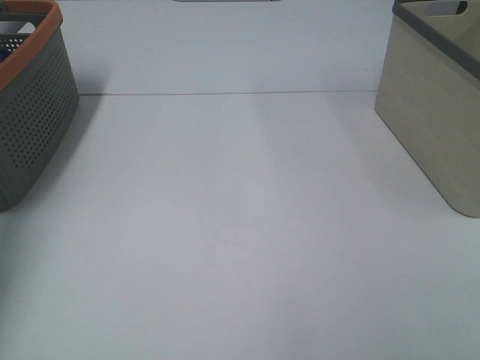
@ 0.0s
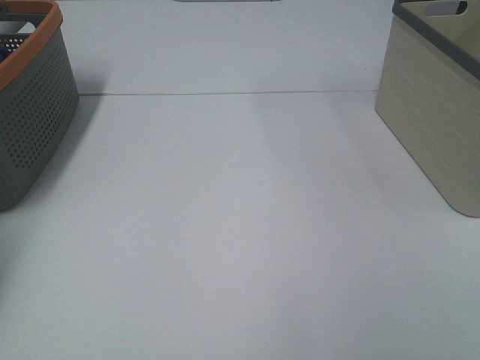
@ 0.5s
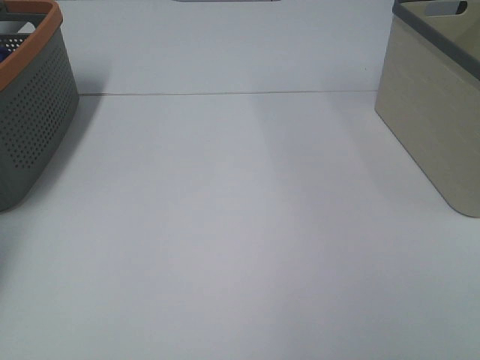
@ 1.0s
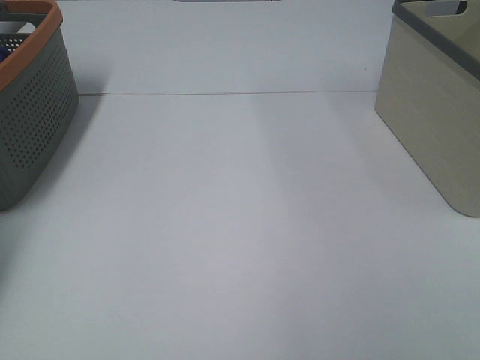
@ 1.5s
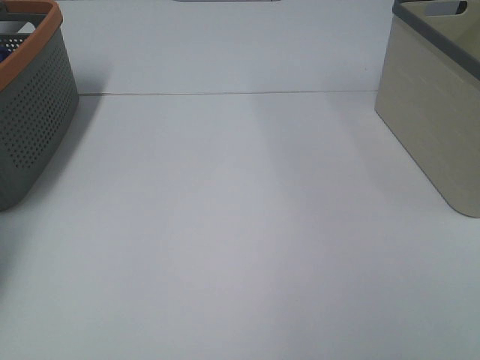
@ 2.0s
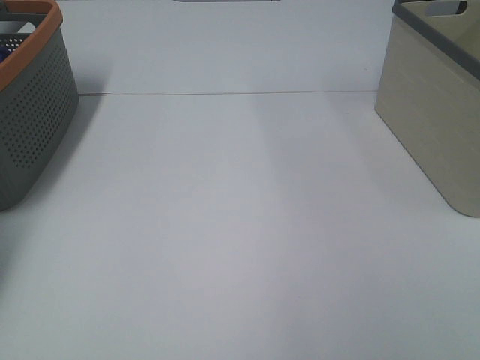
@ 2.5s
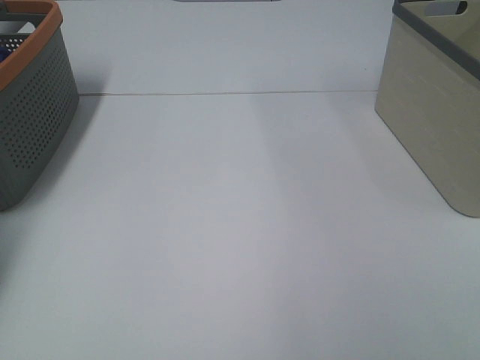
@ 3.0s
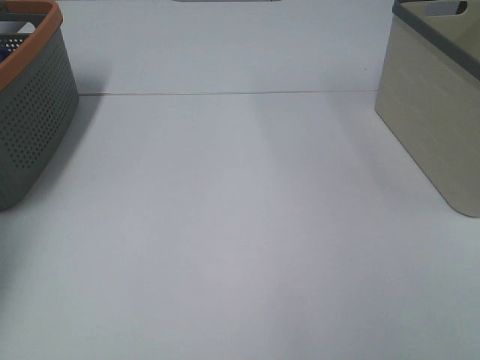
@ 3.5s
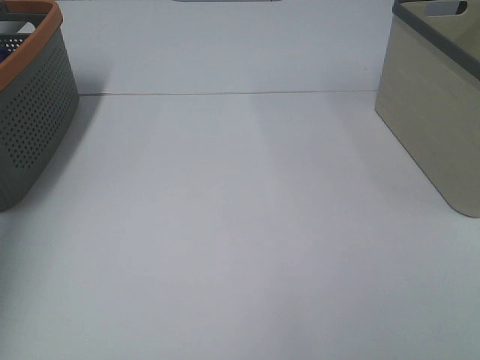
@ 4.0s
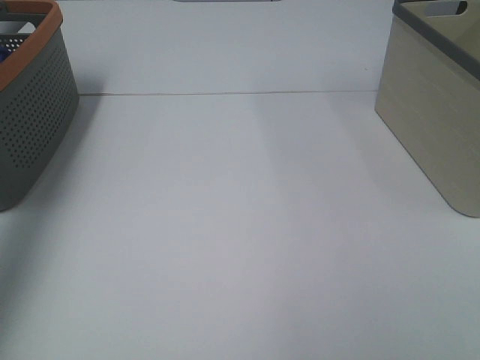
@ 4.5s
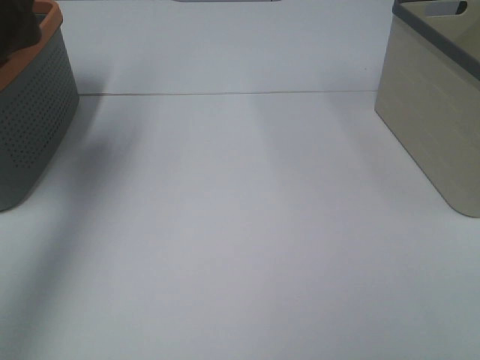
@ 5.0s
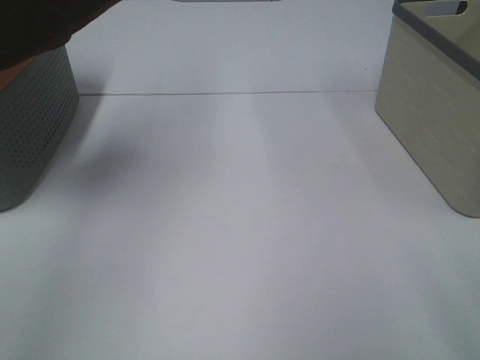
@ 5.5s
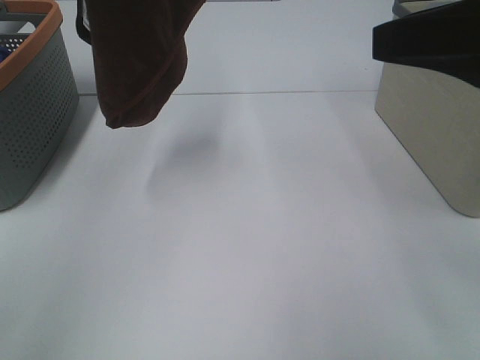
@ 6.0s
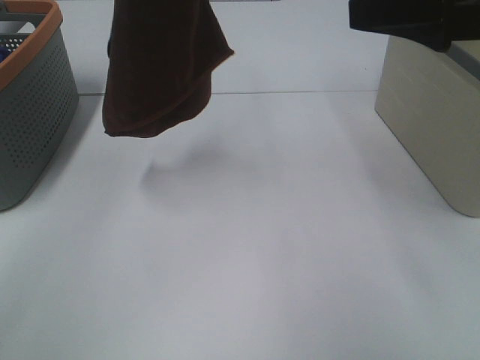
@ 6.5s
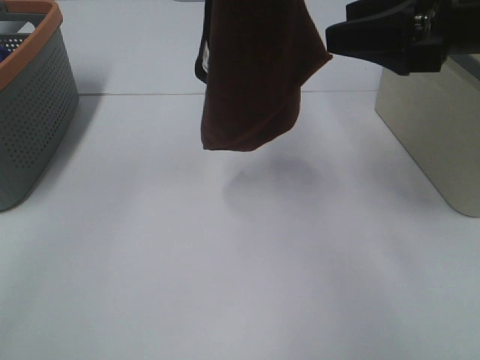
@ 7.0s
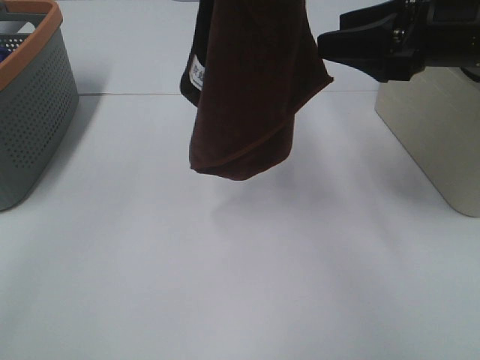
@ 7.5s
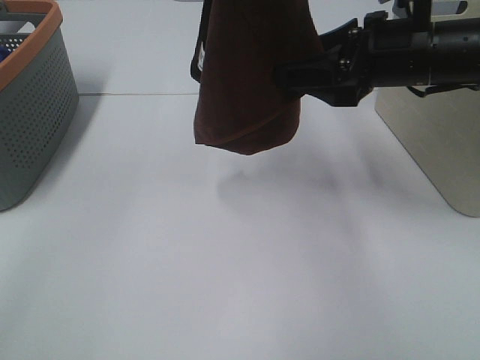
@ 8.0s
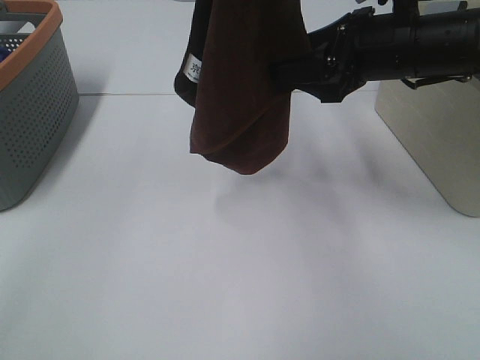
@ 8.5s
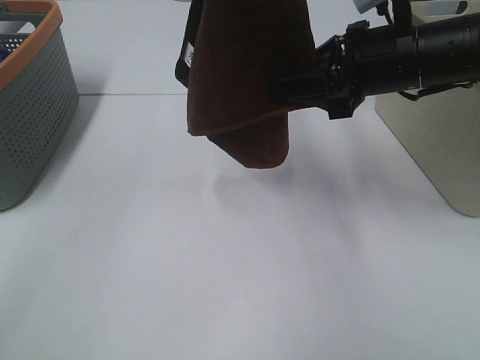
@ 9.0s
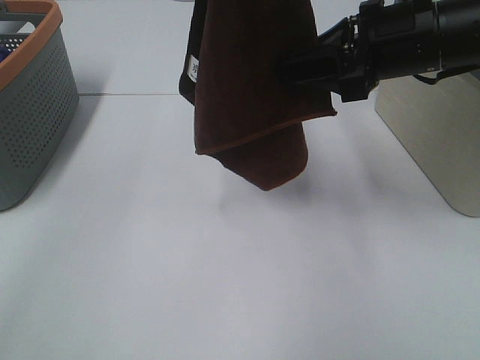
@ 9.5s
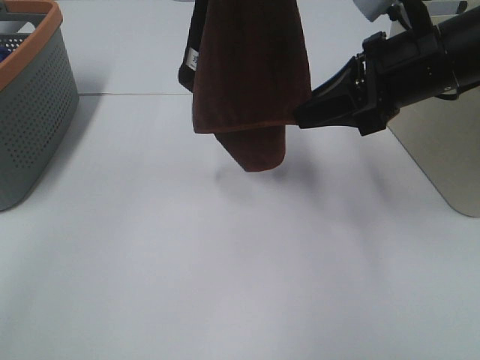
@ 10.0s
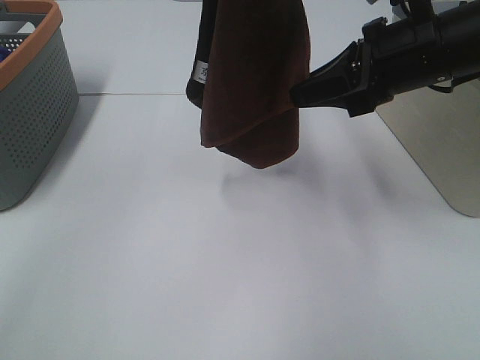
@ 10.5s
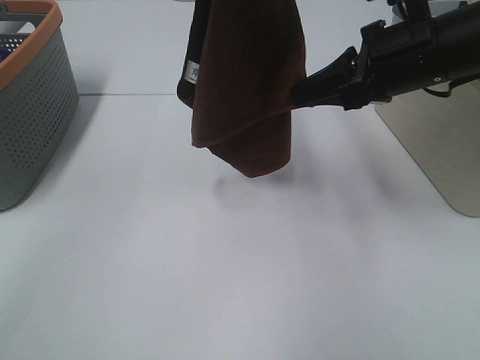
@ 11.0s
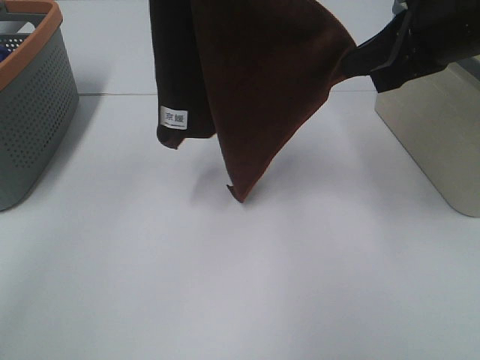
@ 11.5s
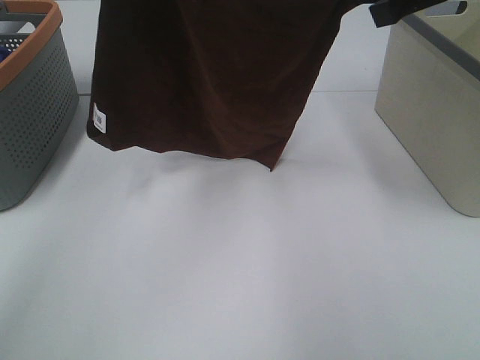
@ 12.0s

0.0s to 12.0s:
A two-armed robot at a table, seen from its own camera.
Task of the whole recording: Remove the towel and place it.
Step, 4.5s to 8.5s: Right hand: grab a corner of the brown towel and straighten it.
Step, 9.0s to 10.5s: Right hand: spread the brown towel flat on the table.
Step, 9.0s to 11.0s: Left hand: spread the brown towel flat on the table.
4.0s to 6.0s: The right gripper is displaced forward by about 20 cm, while the left gripper goes about 25 cm to the right and upward.
6.0s to 8.0s: The right gripper is displaced forward and downward by roughly 15 cm. Meanwhile the left gripper travels to the right by some 10 cm.
8.0s to 10.0s: The right gripper closes up.
10.0s to 12.0s: The left gripper travels to the left by approximately 5 cm. Meanwhile the right gripper moves upward, about 10 cm.

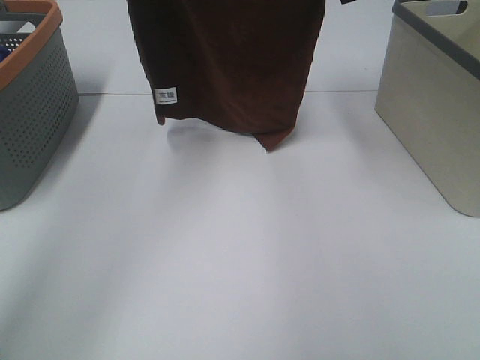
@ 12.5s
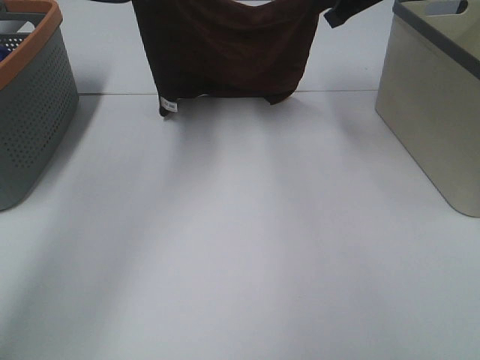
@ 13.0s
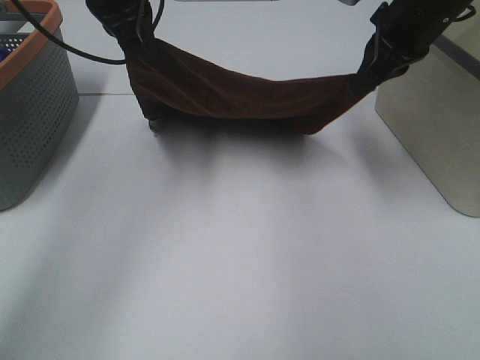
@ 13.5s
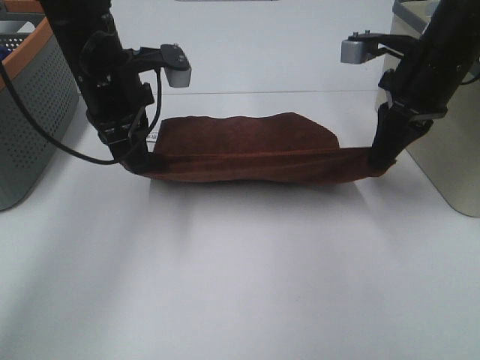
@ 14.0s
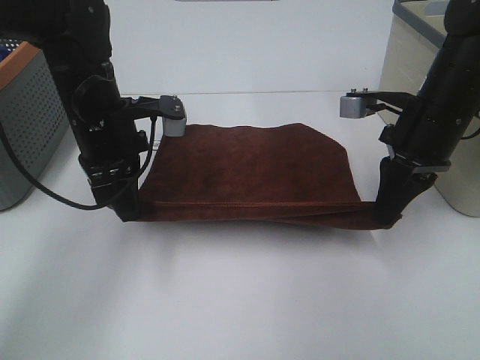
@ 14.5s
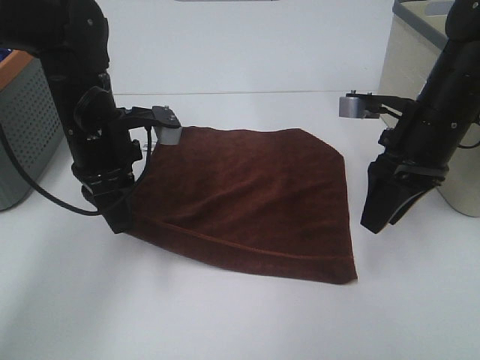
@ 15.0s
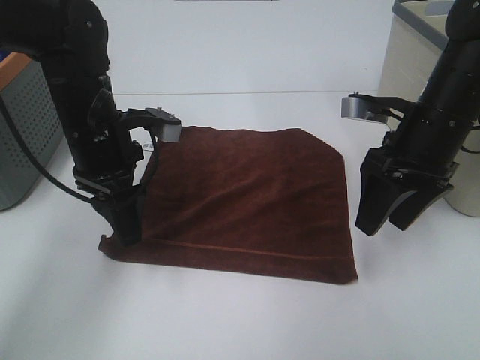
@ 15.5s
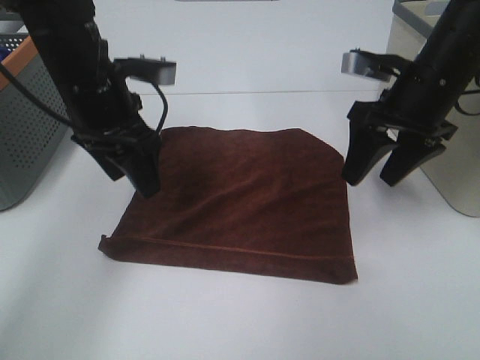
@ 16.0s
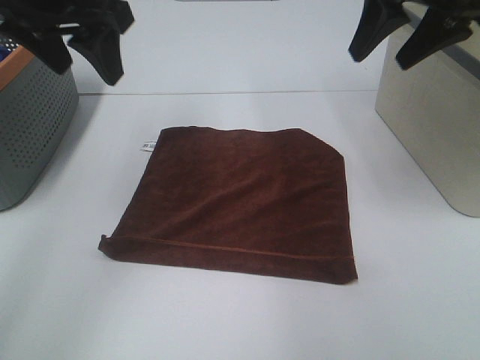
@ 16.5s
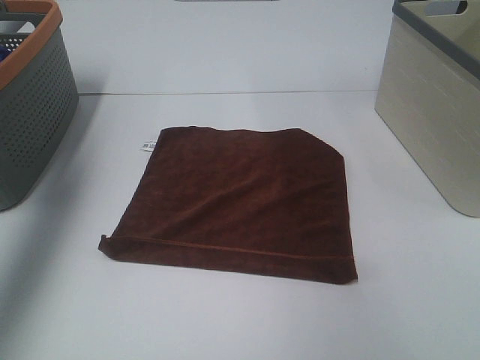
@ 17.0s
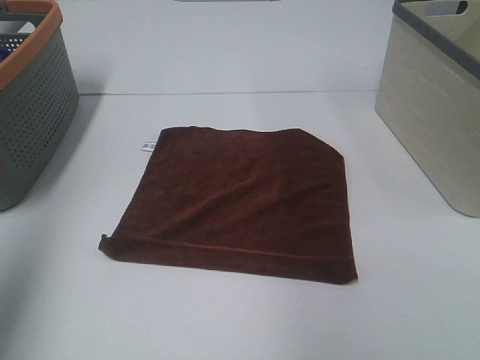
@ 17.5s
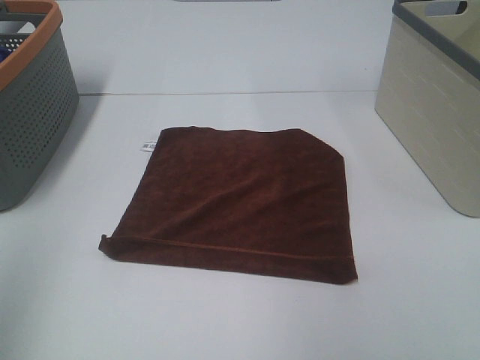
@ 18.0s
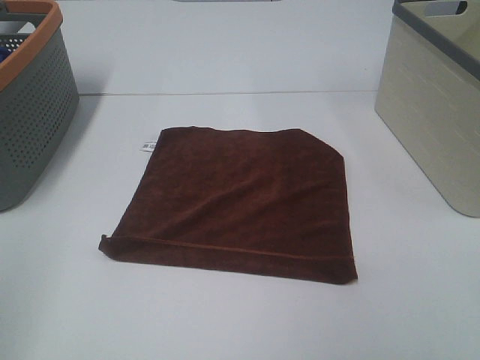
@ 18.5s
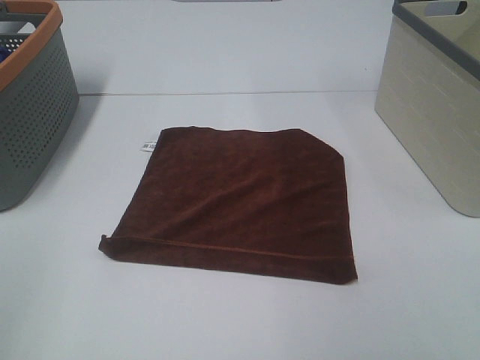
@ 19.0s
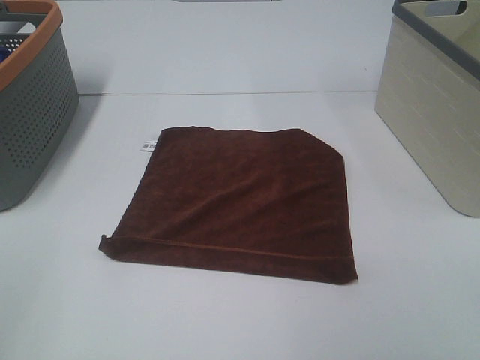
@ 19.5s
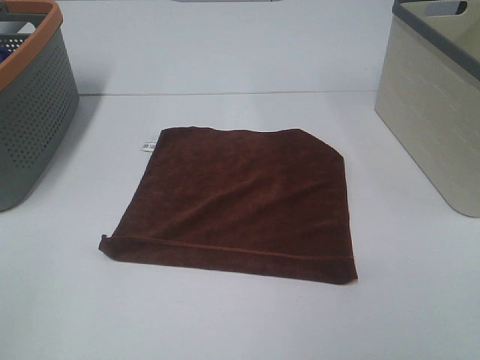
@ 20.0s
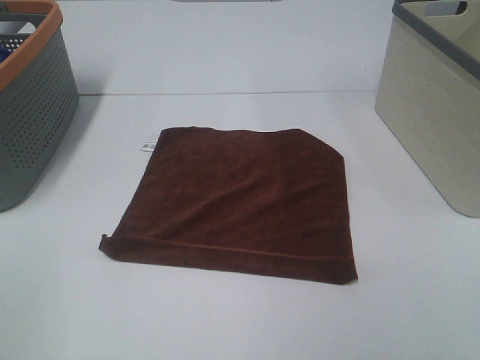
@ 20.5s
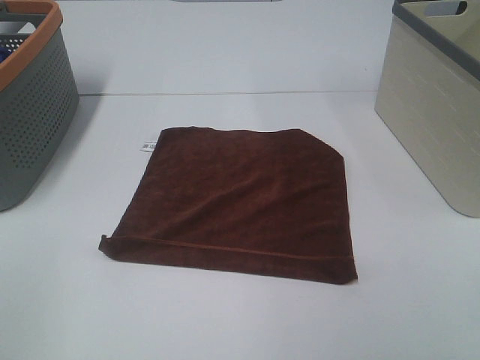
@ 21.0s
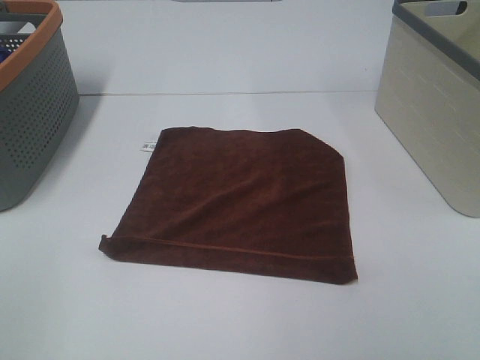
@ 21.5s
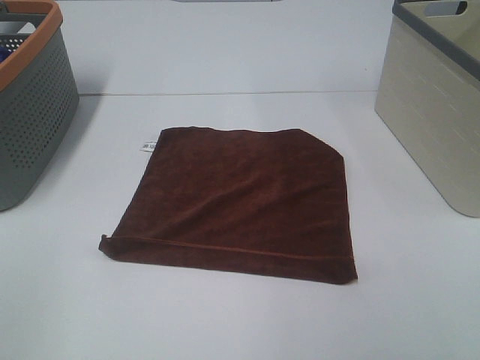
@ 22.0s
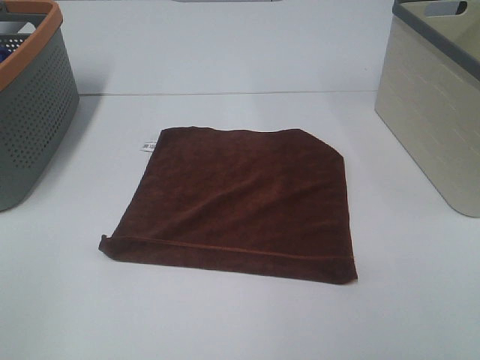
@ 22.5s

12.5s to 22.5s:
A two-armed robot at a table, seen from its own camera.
Task of the whole recording: Remove the towel and place it.
12.5s to 14.5s: The right gripper travels downward and backward by some 15 cm; the left gripper goes some 25 cm downward.
14.5s to 16.5s: Both grippers move upward, roughly 15 cm. The left gripper opens up; the right gripper opens.
16.5s to 18.5s: The right gripper shifts about 30 cm backward; the left gripper travels backward and to the left by some 35 cm.
20.5s to 22.5s: The two grippers keep their place.

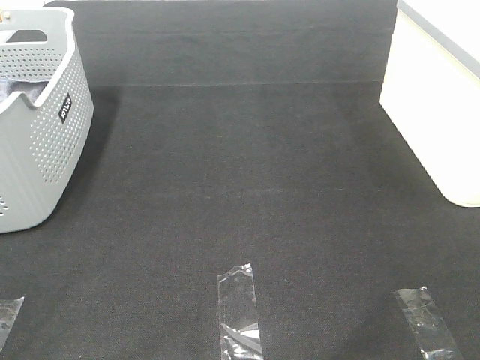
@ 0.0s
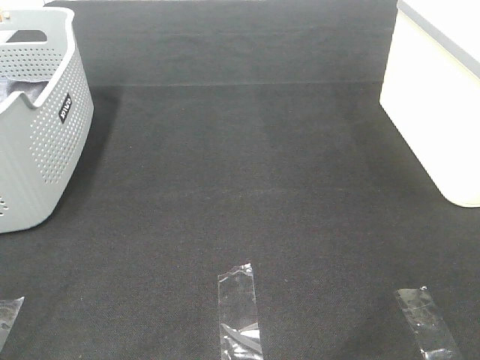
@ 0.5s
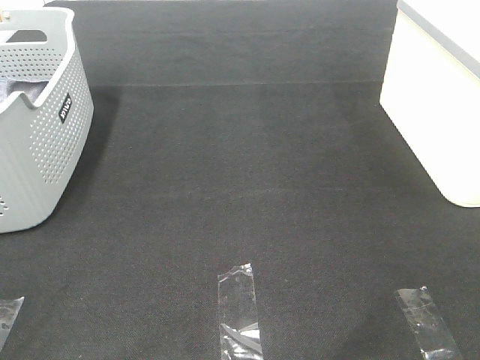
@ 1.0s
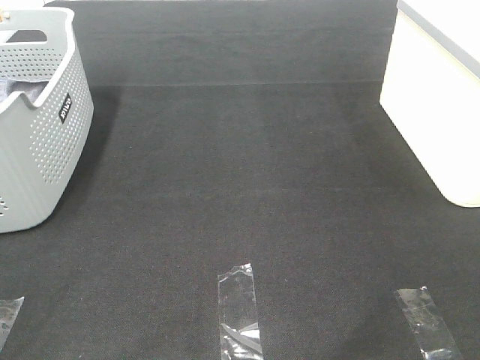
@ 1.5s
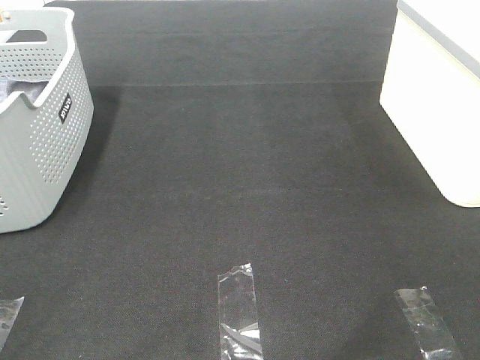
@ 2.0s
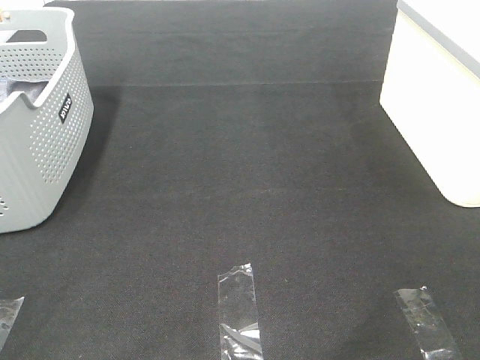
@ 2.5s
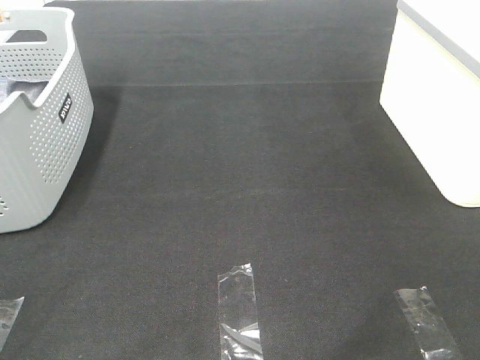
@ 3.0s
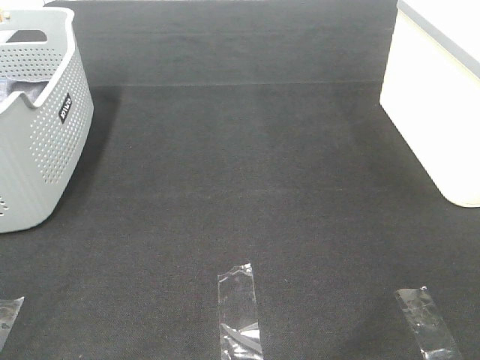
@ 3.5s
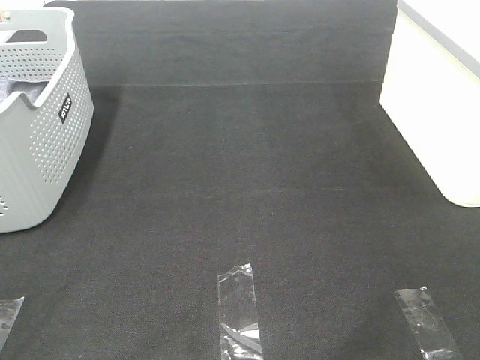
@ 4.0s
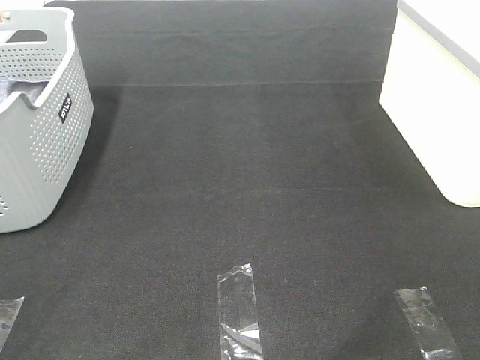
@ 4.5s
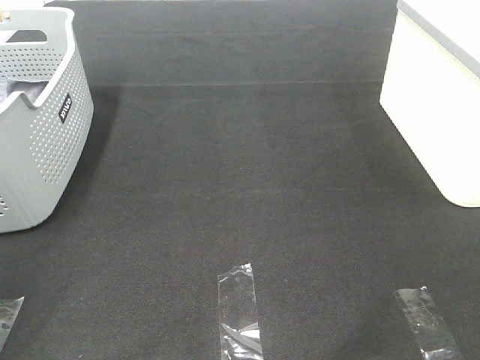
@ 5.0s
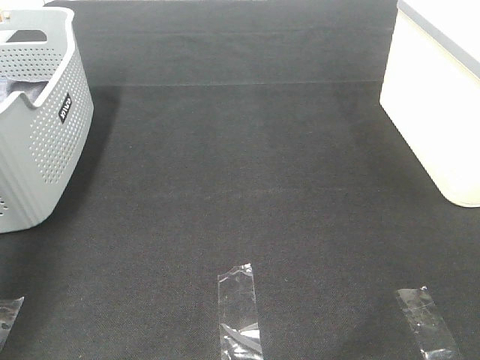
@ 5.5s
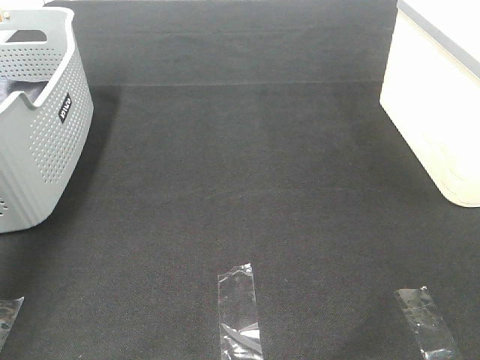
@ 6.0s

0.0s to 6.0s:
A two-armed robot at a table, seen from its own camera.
Task of the whole recording: Remove the towel and place it.
0.0s to 4.0s: The two grippers keep their place.
4.0s to 6.0s: The left gripper is displaced forward by about 40 cm.
